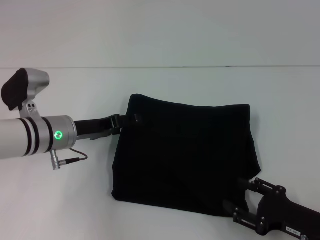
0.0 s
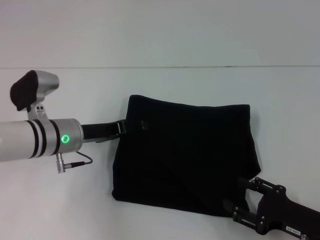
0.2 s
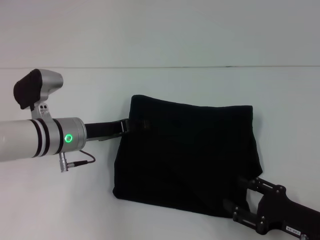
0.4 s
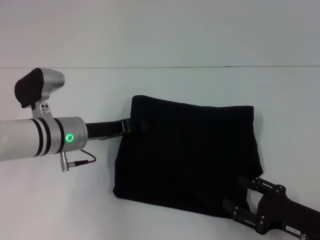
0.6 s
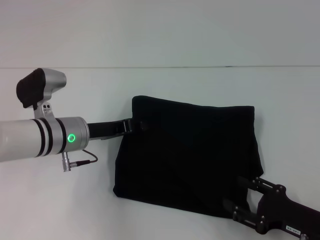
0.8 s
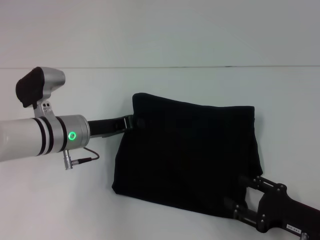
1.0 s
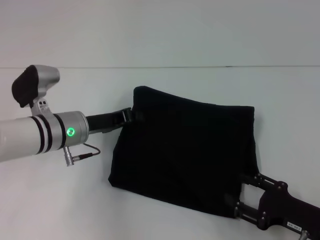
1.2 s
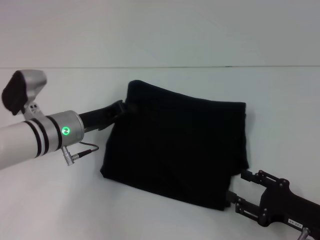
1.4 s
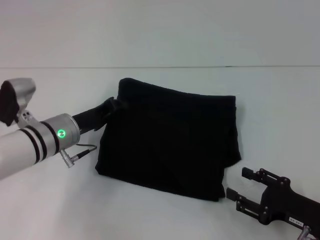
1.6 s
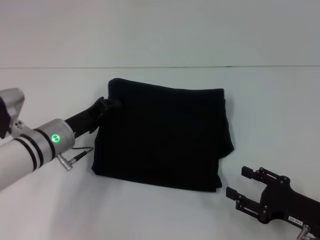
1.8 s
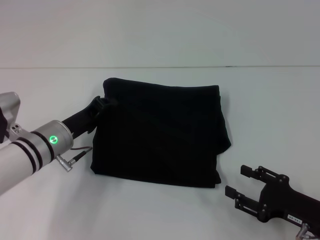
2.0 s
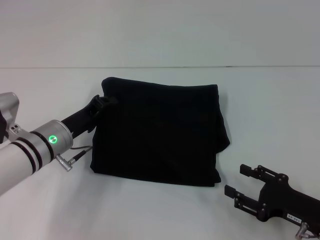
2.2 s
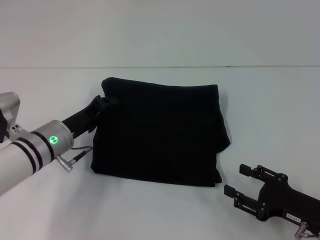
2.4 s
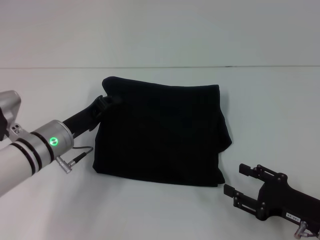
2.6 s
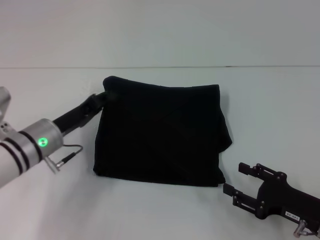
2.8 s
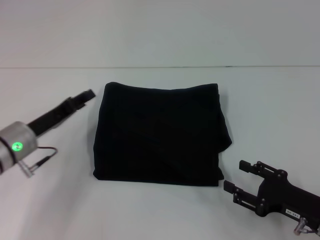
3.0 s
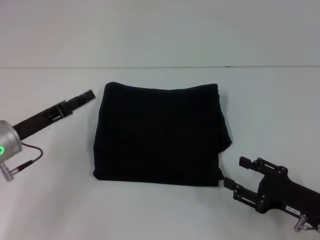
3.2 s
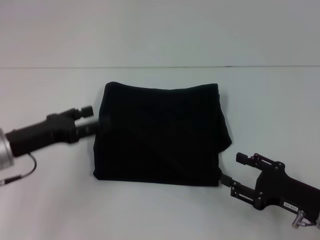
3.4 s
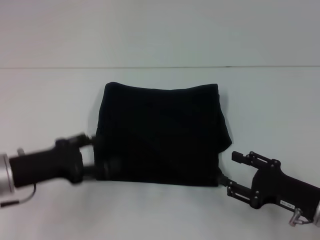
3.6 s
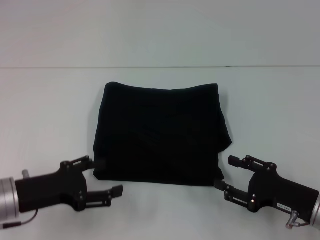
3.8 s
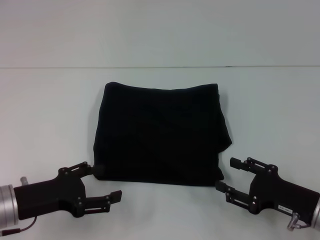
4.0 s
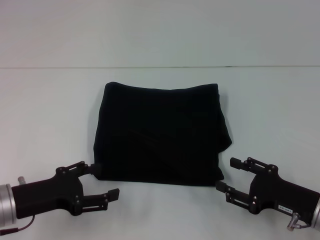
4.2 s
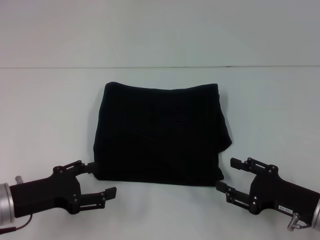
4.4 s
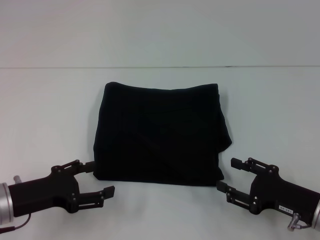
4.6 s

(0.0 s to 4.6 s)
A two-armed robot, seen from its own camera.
0.0 s - 1.6 s: The left gripper closes its fingers.
1.6 s - 3.0 s: The left gripper is displaced to the left by some 5 cm.
3.0 s - 4.6 s: The left gripper heads backward, covering about 10 cm, and opens.

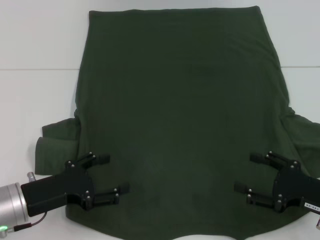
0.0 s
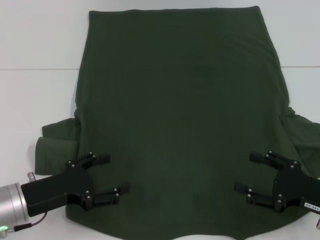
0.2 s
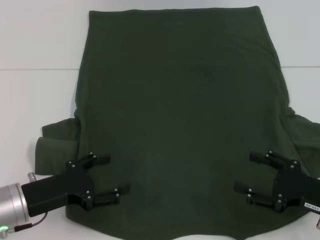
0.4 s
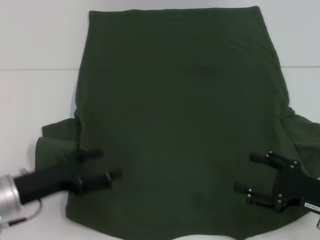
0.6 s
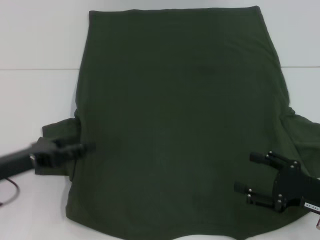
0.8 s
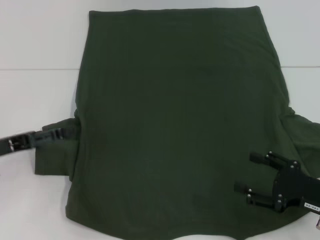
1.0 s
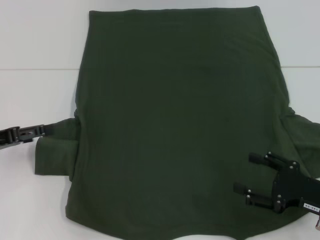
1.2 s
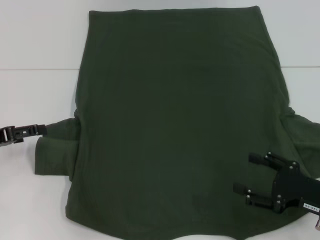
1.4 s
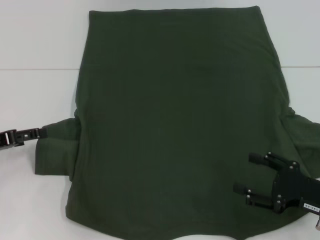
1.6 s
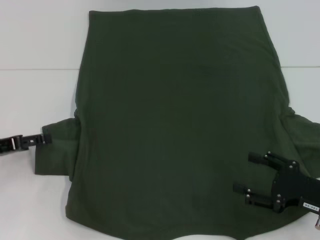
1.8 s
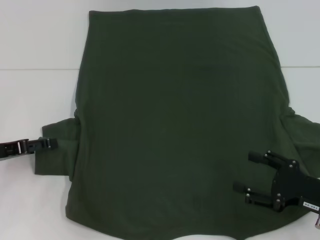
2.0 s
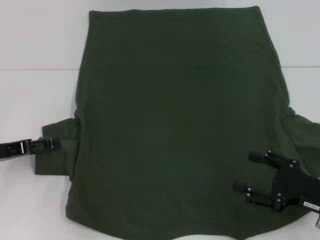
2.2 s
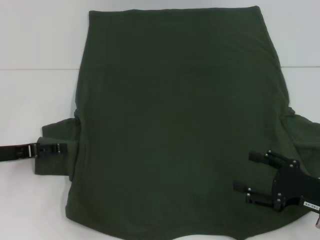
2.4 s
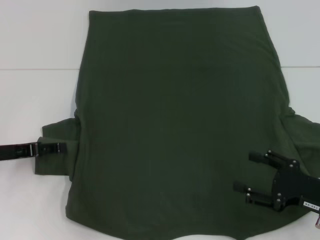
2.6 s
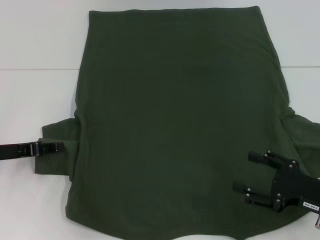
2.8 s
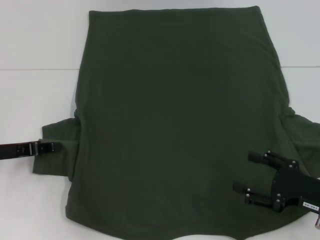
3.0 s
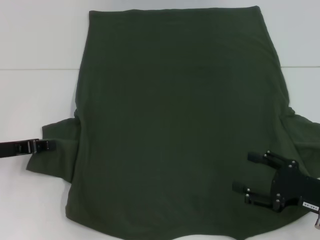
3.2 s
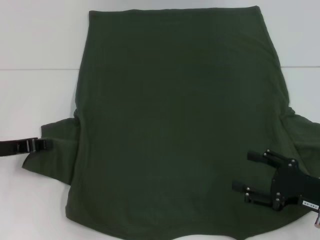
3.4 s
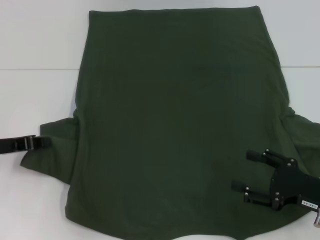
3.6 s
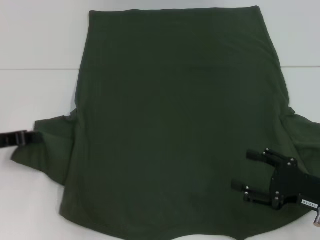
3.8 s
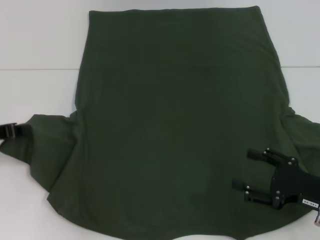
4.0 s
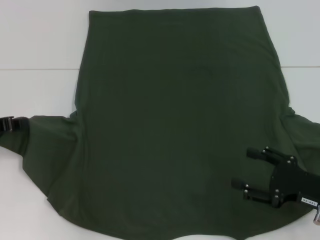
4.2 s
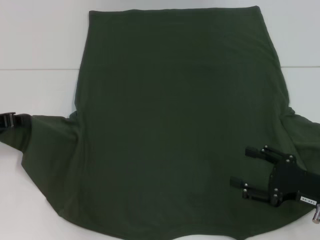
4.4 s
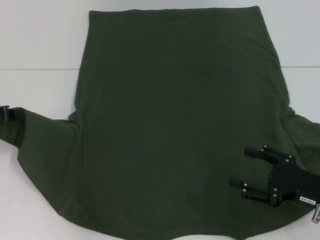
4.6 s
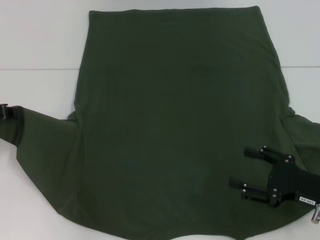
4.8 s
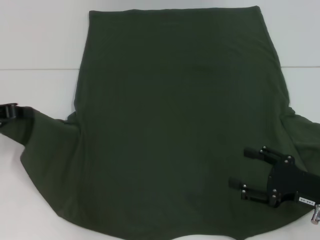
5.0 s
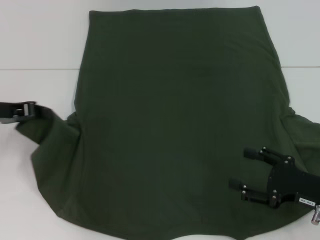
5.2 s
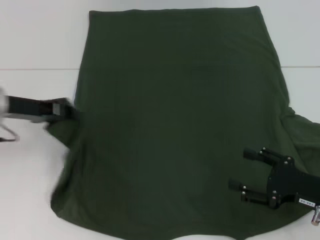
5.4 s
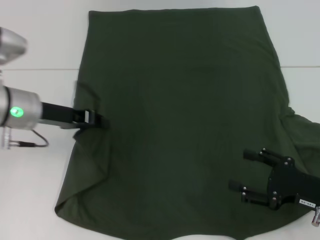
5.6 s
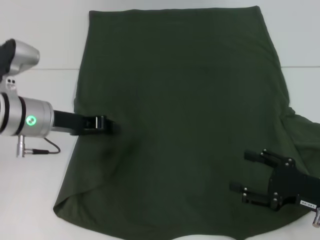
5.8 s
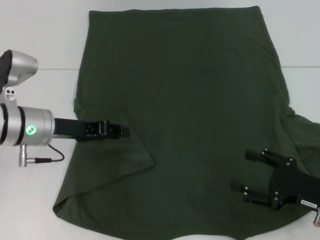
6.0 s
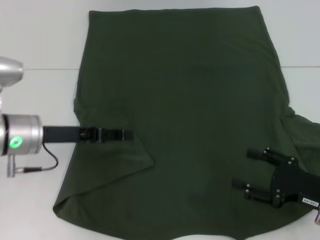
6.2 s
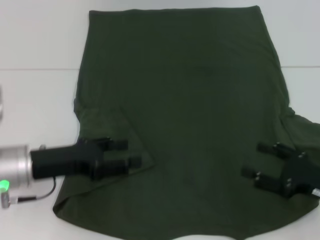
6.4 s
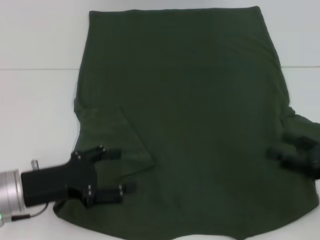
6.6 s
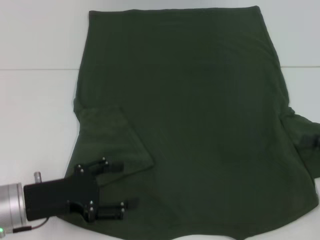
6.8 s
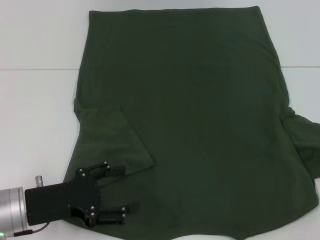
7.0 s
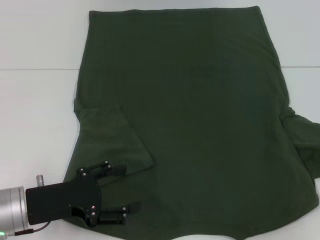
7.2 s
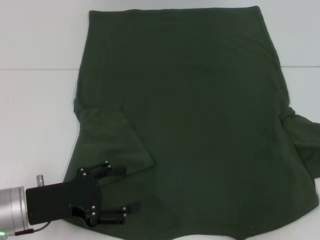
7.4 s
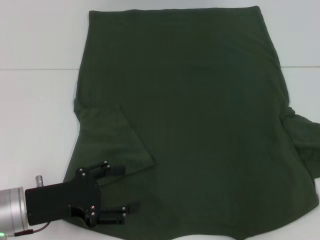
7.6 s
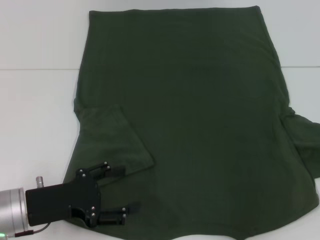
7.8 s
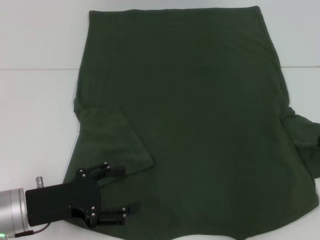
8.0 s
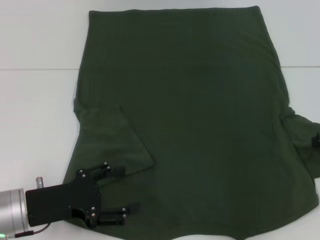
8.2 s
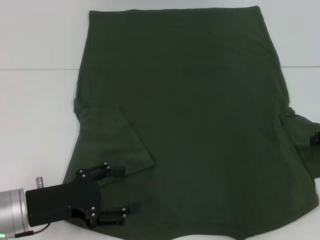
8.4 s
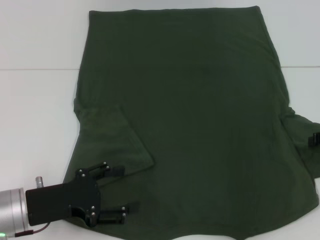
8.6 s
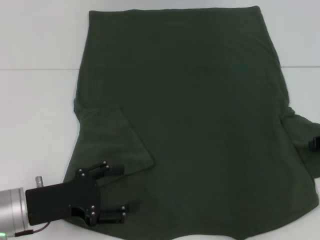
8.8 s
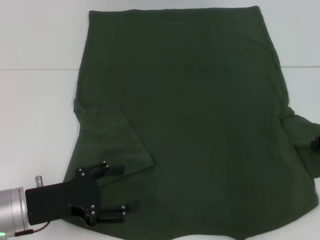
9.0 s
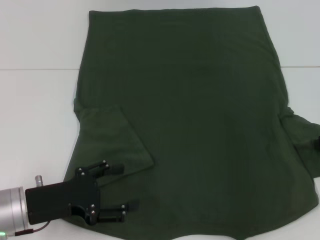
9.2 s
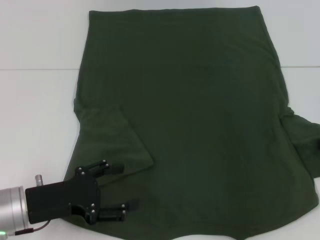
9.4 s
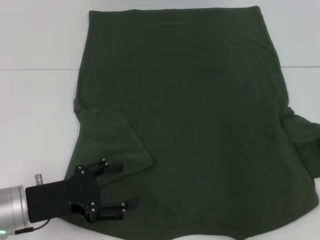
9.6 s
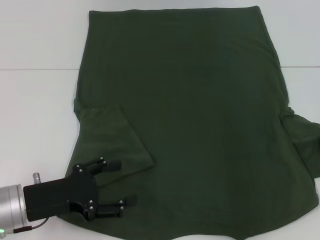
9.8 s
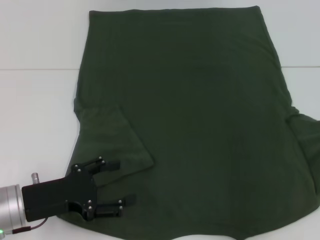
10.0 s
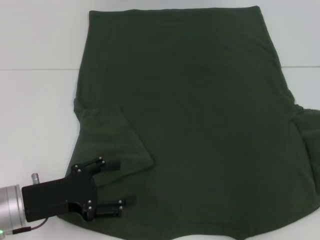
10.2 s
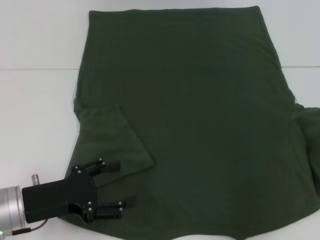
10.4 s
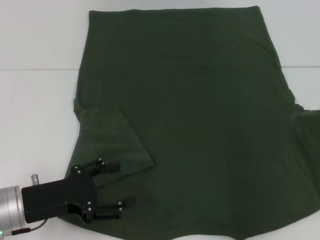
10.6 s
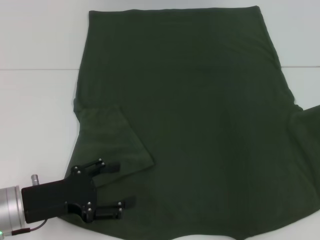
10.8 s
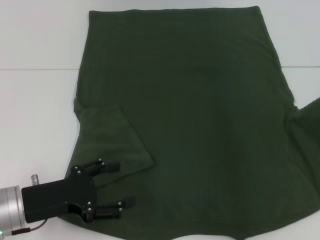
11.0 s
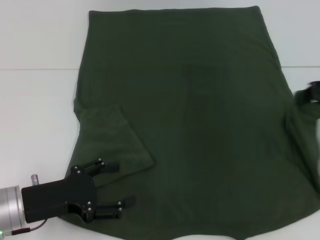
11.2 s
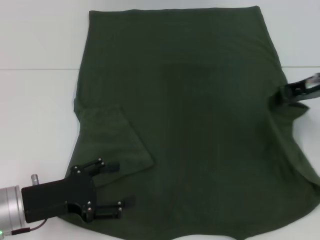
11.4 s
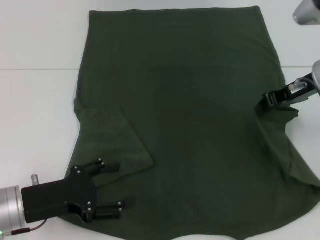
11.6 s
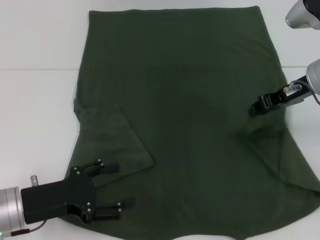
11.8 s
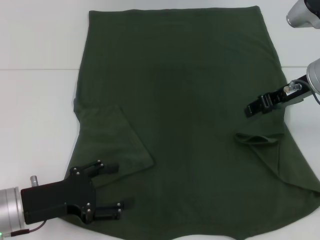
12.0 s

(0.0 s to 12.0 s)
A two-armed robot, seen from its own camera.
Step, 0.0 s - 5.8 s: Fold the bottom left sleeve with your left hand.
0.0 s - 1.6 s: The left gripper is displaced to the left and forward by approximately 10 cm.
1.6 s - 3.0 s: The left gripper closes.
3.0 s - 4.4 s: The left gripper moves some 5 cm, and closes.
4.4 s - 6.0 s: The left gripper shifts roughly 15 cm to the right.
6.0 s - 7.6 s: The right gripper heads upward, to the right and forward, covering about 20 cm. Meanwhile the left gripper shifts about 10 cm backward, and opens its fingers.
9.0 s - 10.4 s: The right gripper changes place by roughly 5 cm, and closes up.
10.4 s - 12.0 s: The right gripper is displaced to the left by roughly 15 cm.

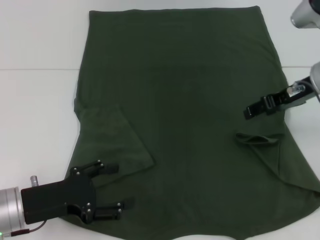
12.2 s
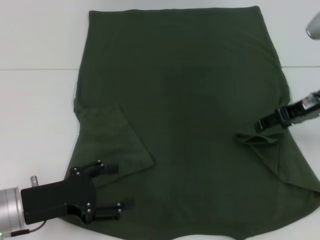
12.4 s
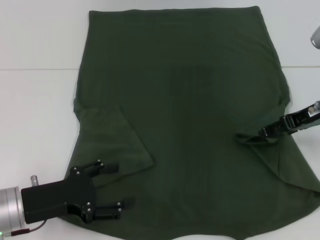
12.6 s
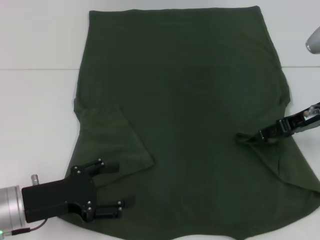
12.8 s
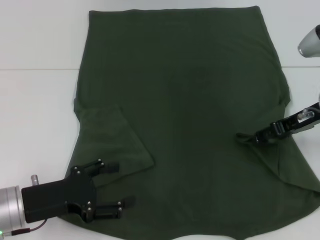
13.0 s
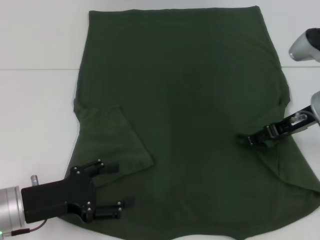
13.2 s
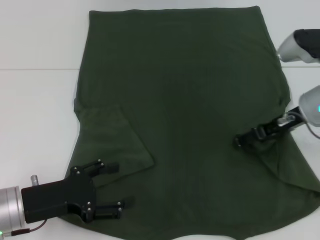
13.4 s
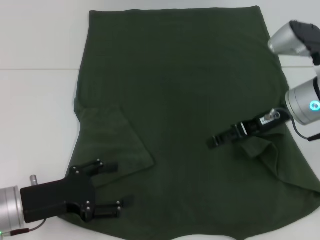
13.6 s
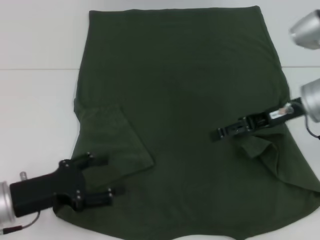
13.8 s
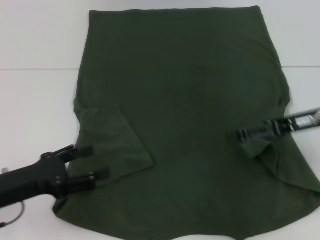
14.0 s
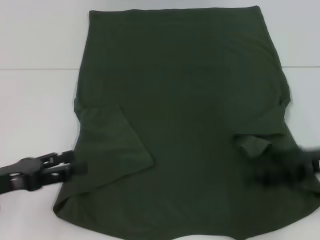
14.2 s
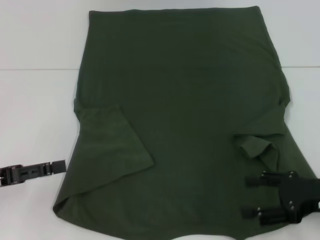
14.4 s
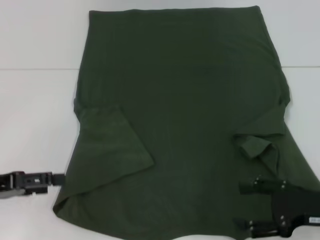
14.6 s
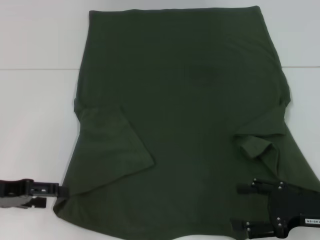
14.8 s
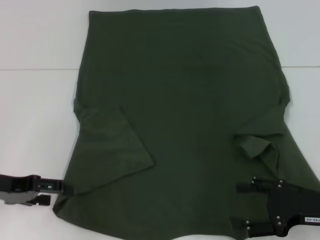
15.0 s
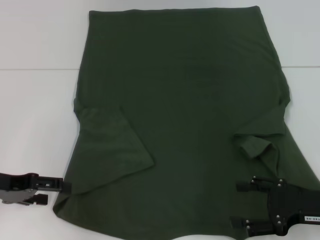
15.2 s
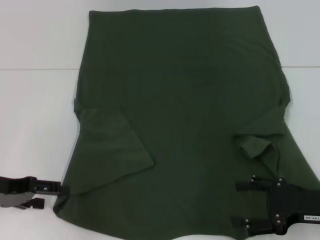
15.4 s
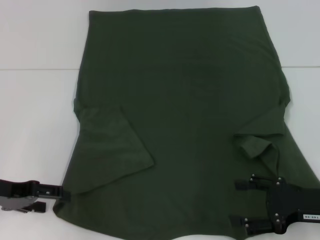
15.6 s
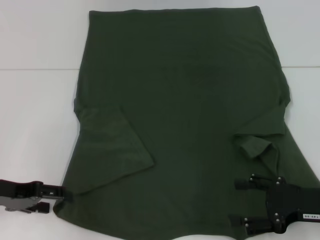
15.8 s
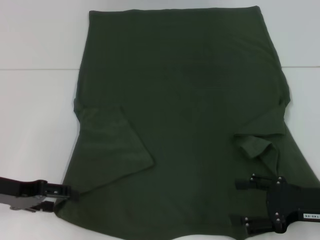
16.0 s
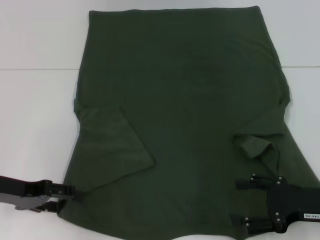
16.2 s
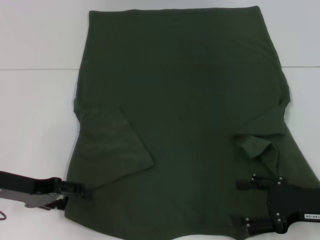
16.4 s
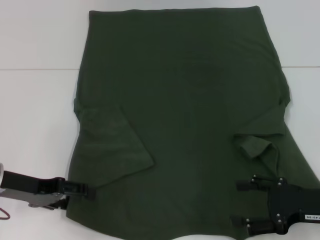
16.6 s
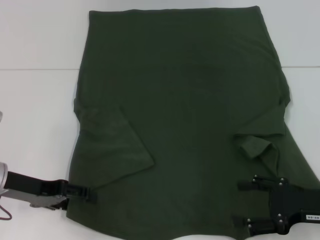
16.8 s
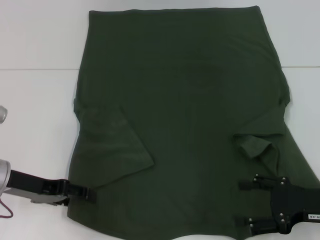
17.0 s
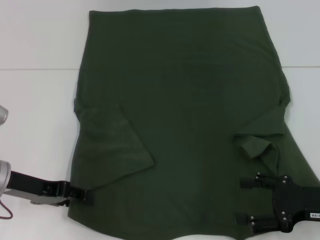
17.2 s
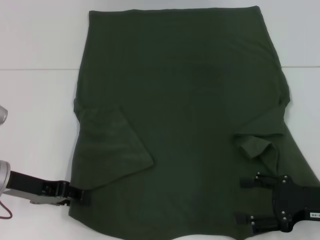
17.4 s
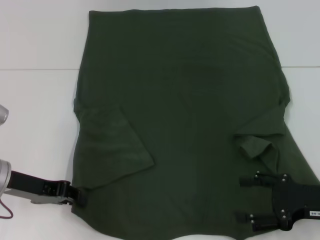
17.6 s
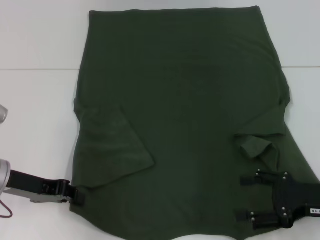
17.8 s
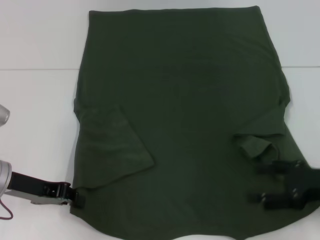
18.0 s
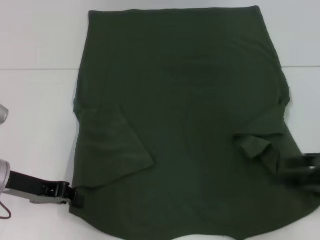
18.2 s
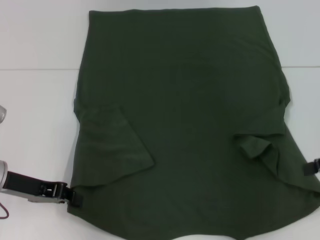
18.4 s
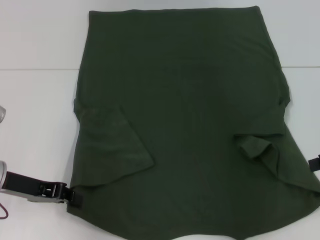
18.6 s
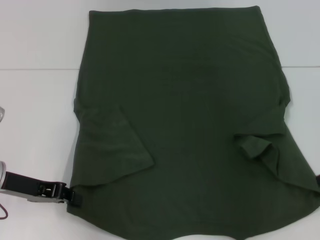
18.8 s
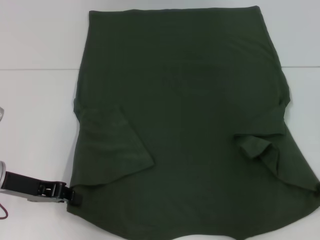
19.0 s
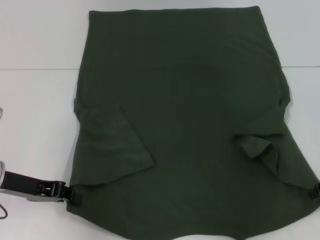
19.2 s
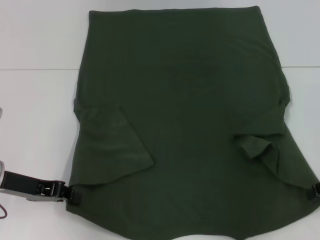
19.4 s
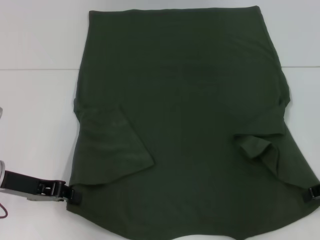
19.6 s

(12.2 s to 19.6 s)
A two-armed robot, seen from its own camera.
Step, 12.4 s - 18.0 s: Grab the bottom left corner with your left hand.
12.2 s - 13.6 s: The right gripper opens.
13.6 s - 15.2 s: The left gripper heads to the left, covering some 5 cm, while the right gripper moves backward, downward and to the right, roughly 20 cm.
15.2 s - 16.6 s: The grippers move only a little.
16.6 s - 18.2 s: The right gripper heads upward, covering approximately 5 cm; the left gripper closes up.
